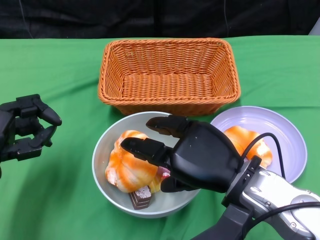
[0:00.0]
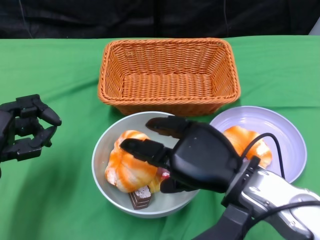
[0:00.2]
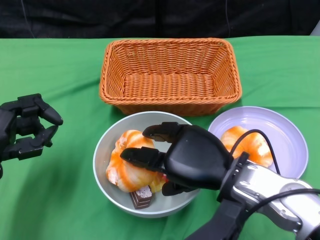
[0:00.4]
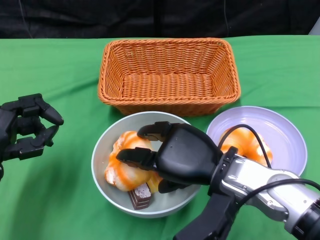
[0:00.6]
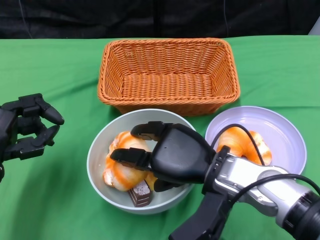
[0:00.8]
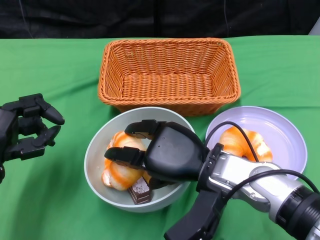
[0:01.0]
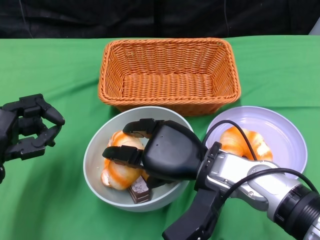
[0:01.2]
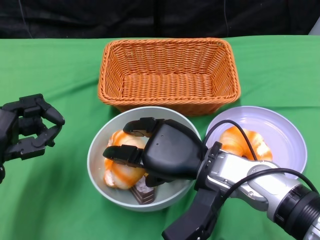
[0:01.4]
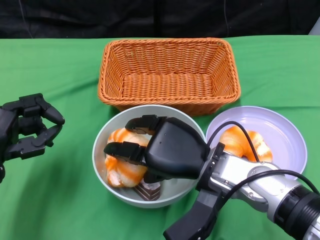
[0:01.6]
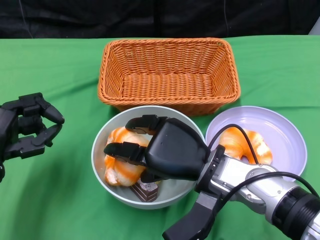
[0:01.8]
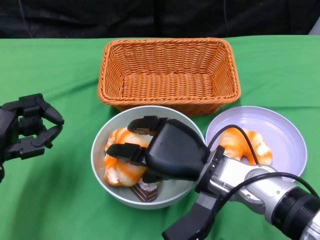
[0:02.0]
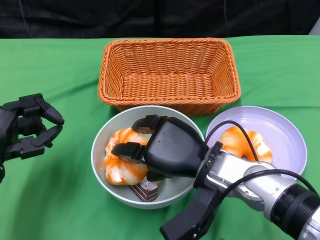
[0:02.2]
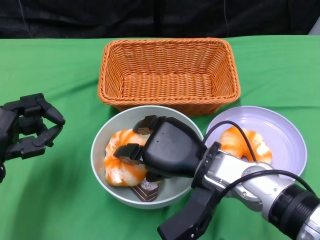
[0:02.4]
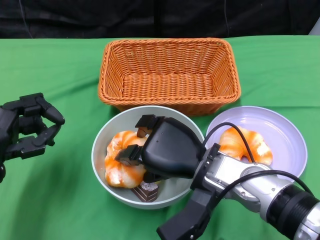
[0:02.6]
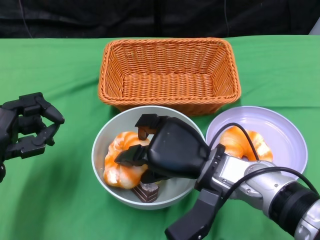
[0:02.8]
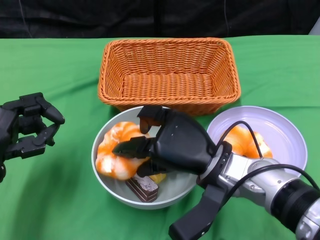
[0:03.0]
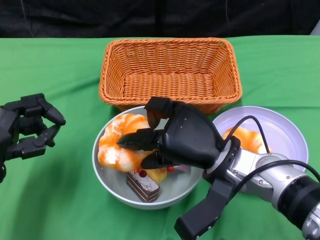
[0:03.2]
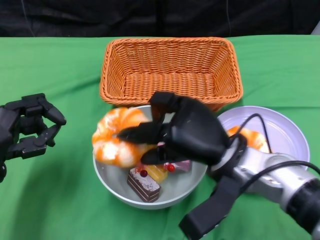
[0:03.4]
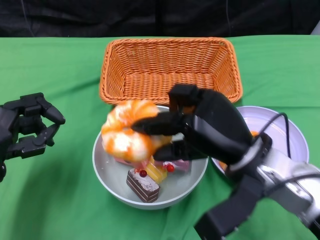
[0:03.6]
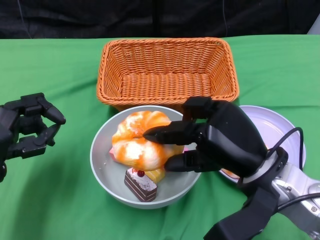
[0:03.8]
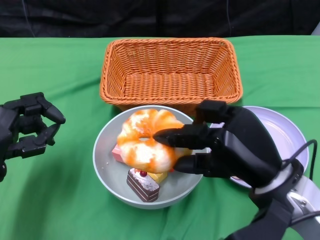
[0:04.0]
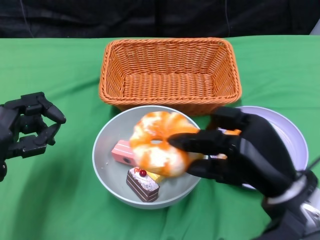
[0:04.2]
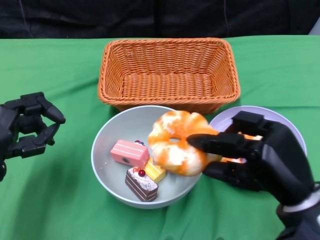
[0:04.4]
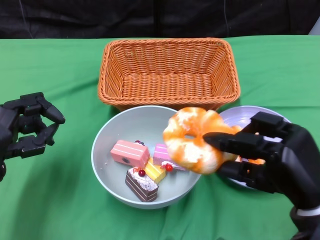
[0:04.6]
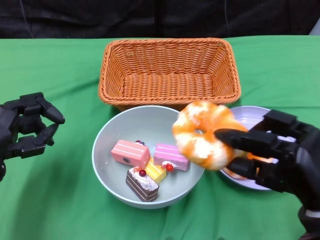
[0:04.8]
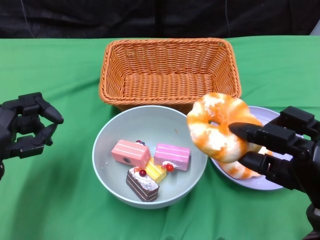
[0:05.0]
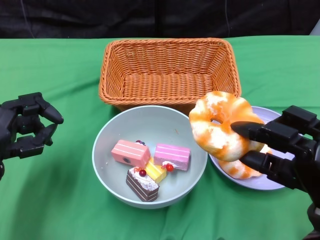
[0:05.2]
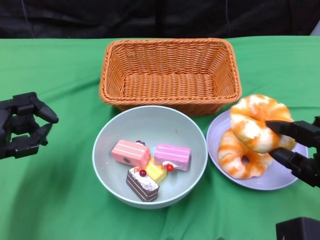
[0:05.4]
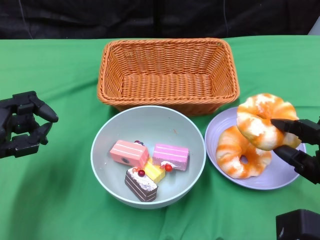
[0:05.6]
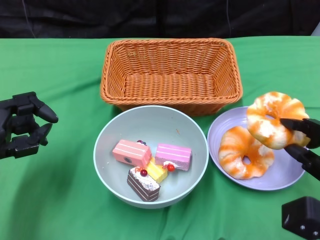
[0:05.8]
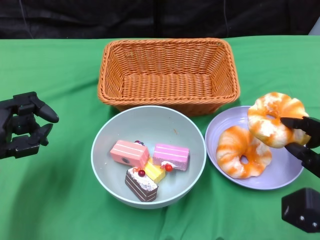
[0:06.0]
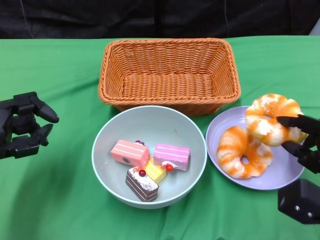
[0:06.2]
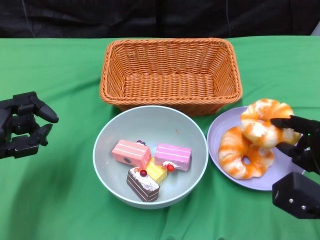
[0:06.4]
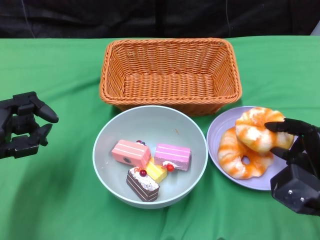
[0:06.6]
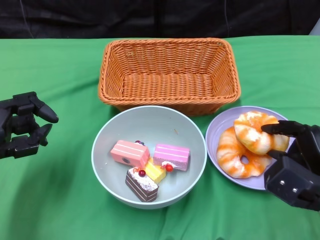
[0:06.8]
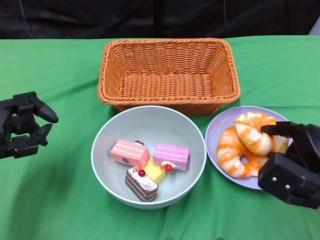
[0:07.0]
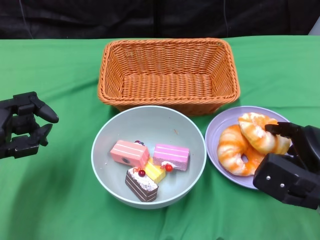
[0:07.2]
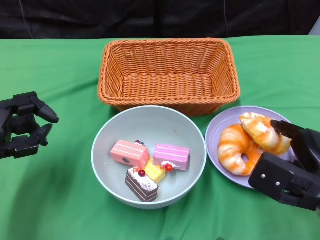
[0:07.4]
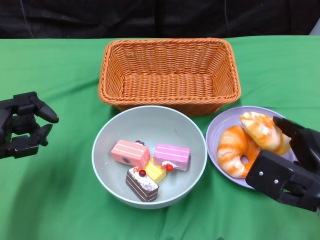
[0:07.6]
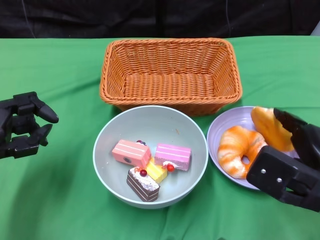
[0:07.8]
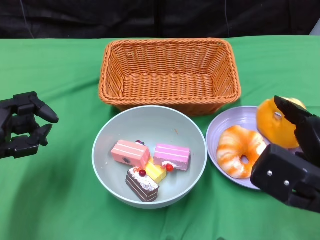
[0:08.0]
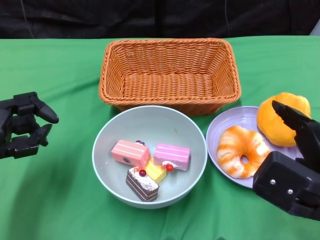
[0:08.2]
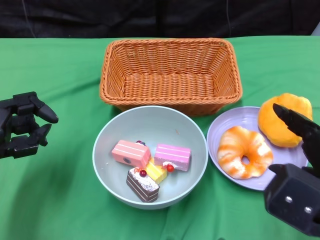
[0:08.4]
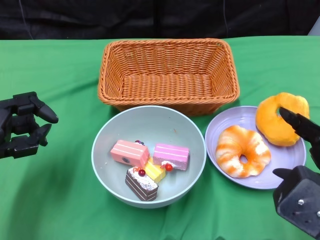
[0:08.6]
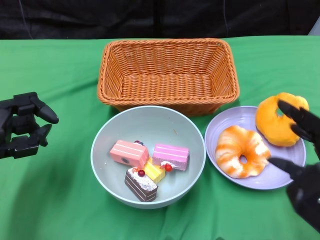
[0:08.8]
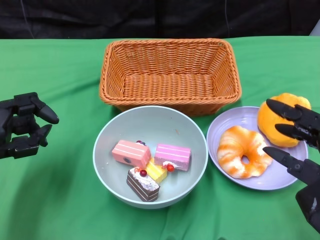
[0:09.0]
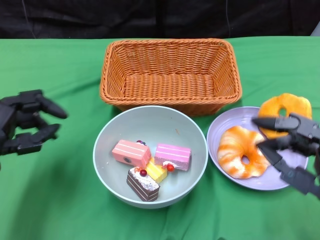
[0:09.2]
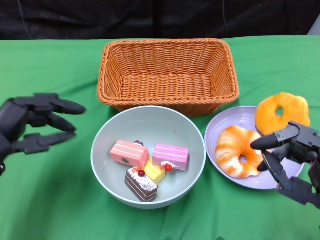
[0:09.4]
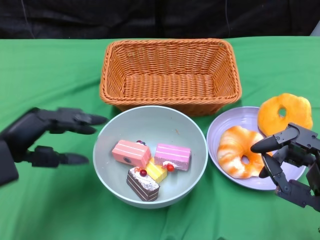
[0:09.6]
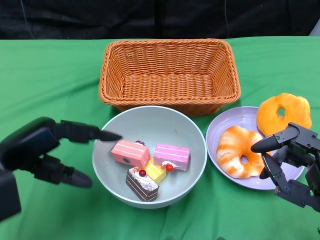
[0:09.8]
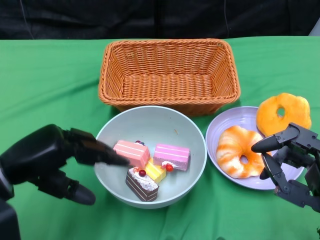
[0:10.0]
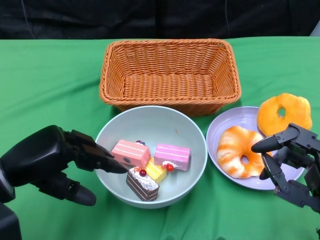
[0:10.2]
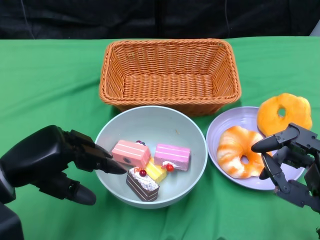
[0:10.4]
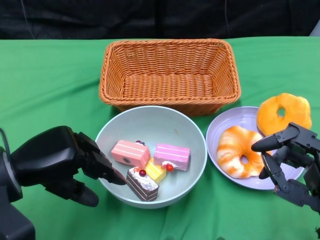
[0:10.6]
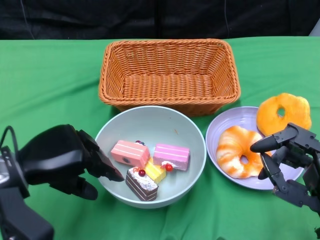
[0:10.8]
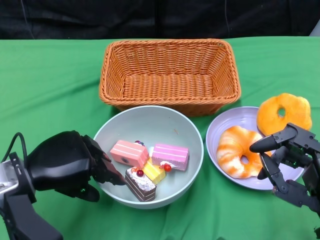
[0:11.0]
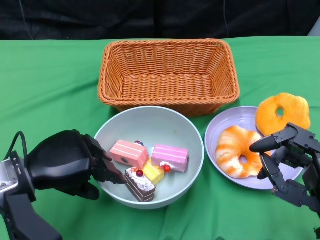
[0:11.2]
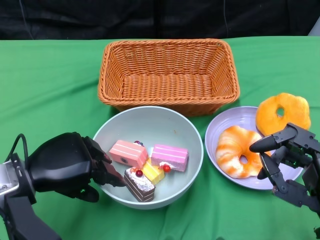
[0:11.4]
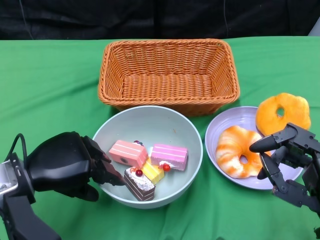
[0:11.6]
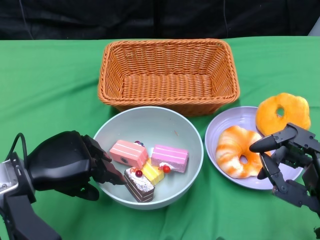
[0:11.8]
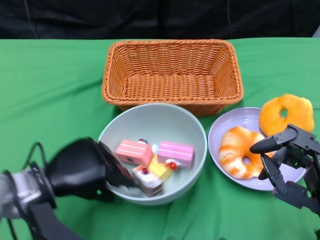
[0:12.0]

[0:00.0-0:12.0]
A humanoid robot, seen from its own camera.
Step, 0:00.0 to 0:08.4: Pick up the bread with the right gripper and place it on the plate.
0:00.0 to 0:01.6: The right hand moves about 5 cm.
0:01.6 to 0:03.0: The hands move only a little.
0:03.0 to 0:04.4: The right hand moves to the right and backward, roughly 10 cm.
0:04.4 to 0:06.0: The right hand goes approximately 10 cm to the right and downward.
0:06.0 to 0:07.6: The right hand shifts by approximately 5 cm.
0:07.6 to 0:09.0: The right hand moves backward, some 5 cm.
0:10.4 to 0:12.0: The left hand changes place by some 5 cm.

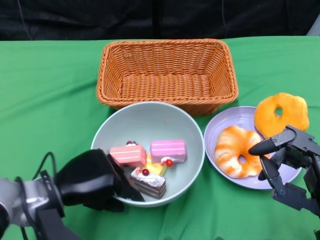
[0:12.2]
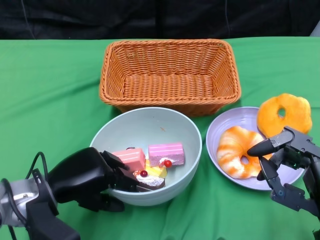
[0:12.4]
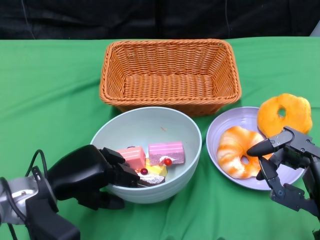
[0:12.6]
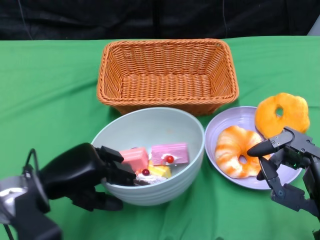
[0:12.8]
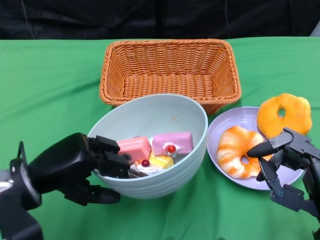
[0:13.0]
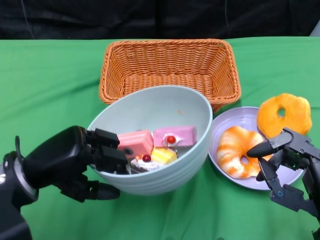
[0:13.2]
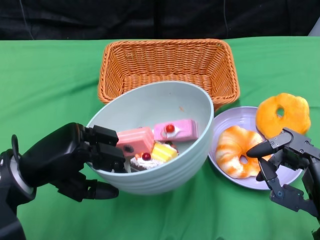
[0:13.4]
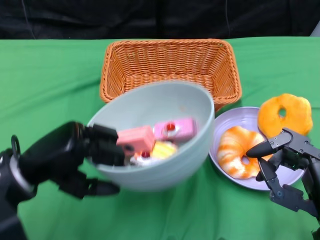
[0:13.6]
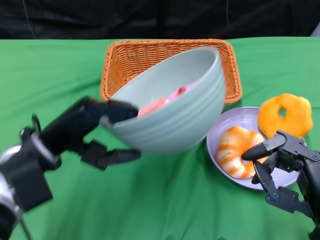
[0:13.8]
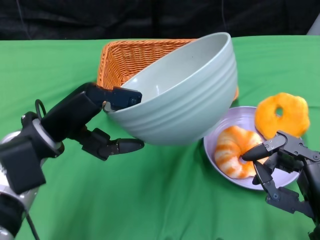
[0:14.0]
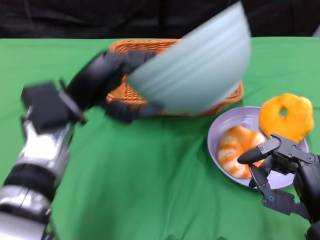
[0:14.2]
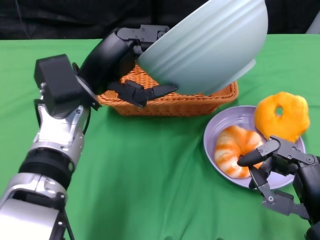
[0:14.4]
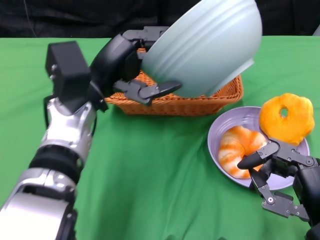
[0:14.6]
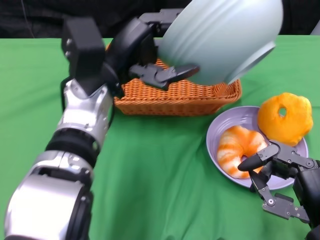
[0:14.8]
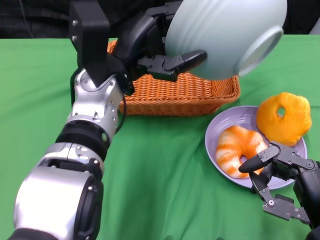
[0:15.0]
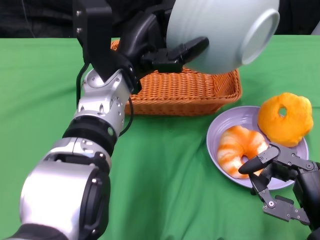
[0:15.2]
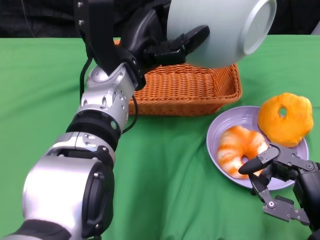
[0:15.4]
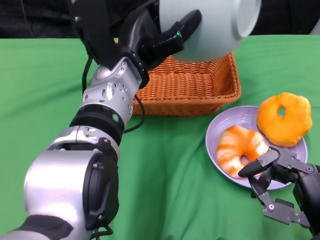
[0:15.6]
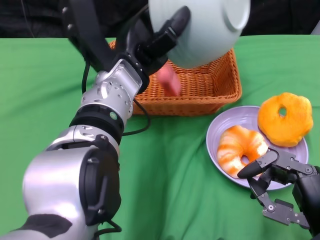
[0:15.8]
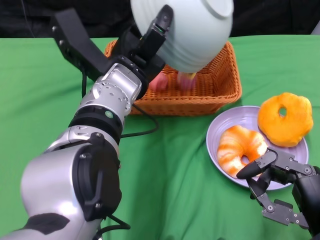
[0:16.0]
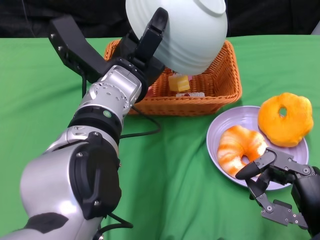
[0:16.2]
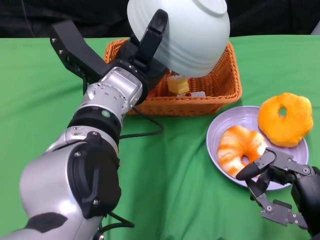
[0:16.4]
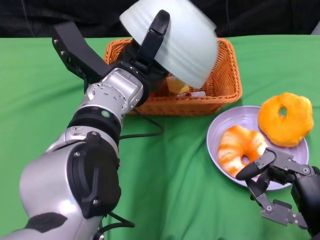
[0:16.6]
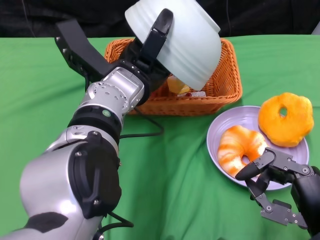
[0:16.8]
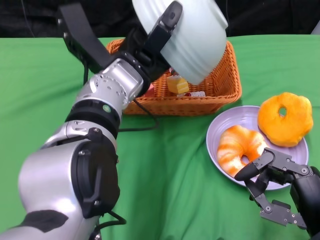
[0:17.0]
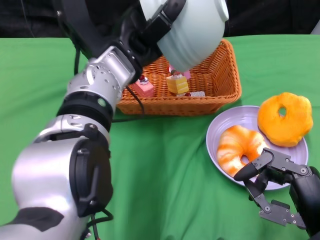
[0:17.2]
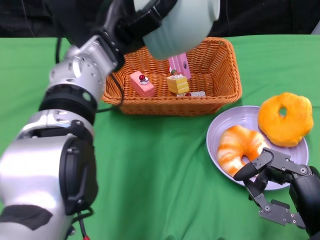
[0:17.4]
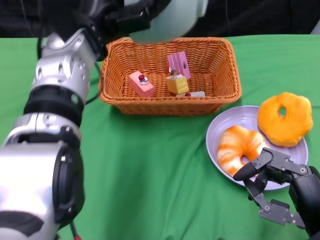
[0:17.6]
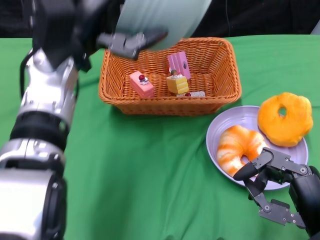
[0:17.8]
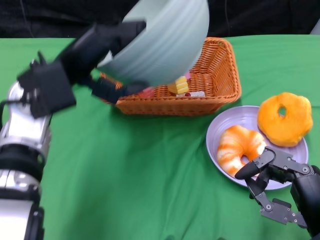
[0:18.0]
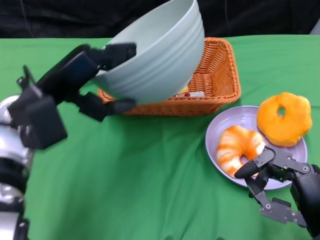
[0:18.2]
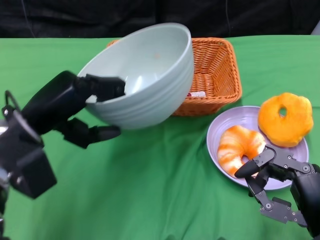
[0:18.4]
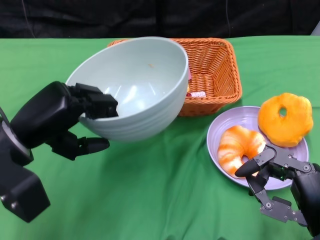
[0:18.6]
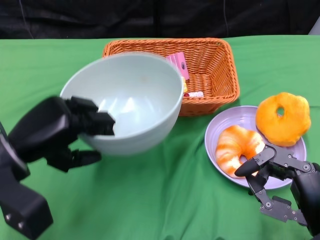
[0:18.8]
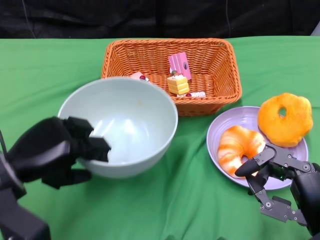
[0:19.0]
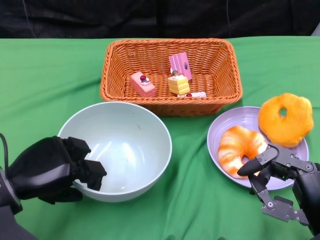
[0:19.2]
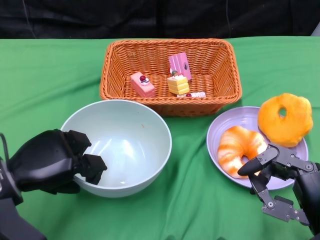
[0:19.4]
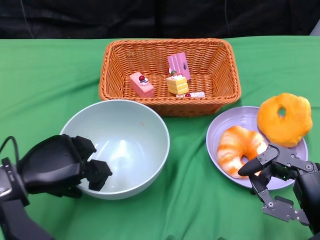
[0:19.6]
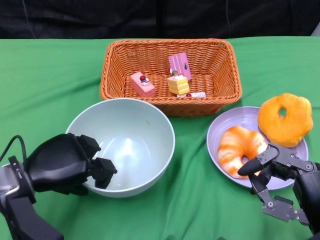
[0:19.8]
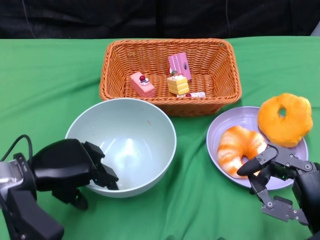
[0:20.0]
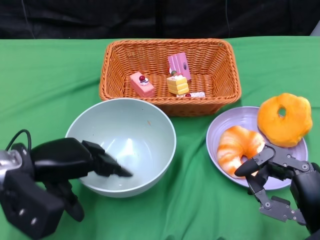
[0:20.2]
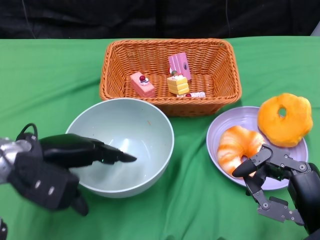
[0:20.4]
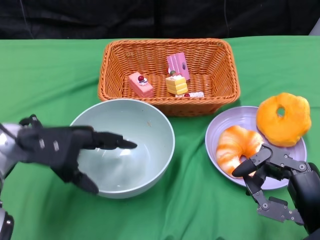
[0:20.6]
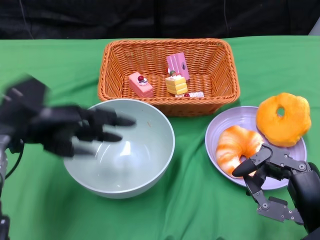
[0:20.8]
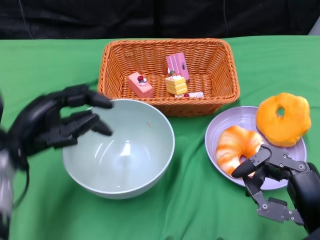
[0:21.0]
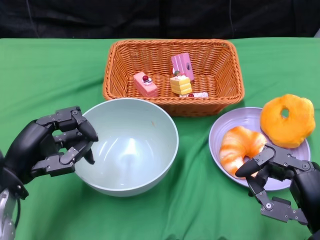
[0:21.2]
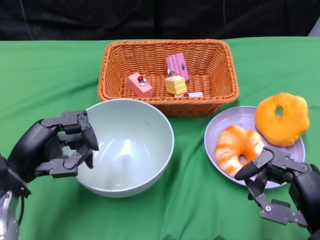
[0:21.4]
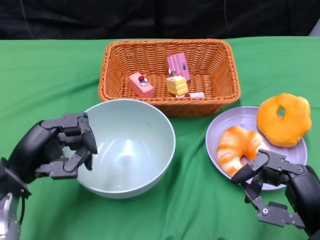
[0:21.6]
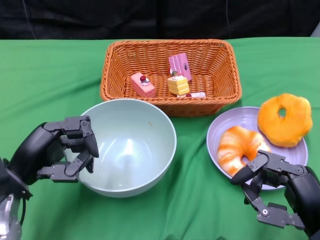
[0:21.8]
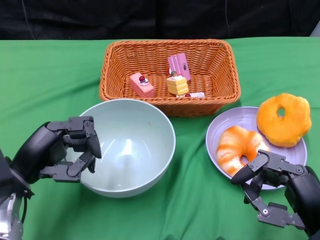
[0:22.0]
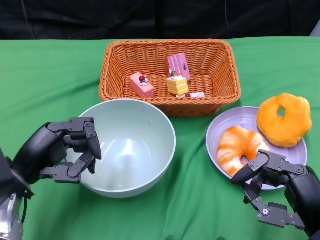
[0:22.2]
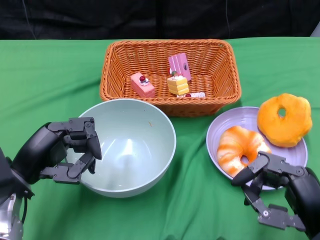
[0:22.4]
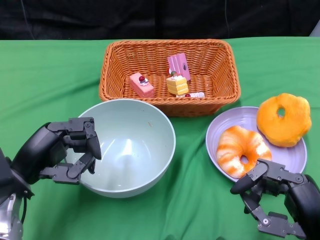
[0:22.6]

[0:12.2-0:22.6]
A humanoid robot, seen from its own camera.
Step, 0:12.4 to 0:16.4: Pour the cake into the basket with the left gripper.
Step, 0:16.6 to 0:20.4: Place the bowl on the table with the left gripper.
0:12.2 to 0:13.6: The left hand goes some 5 cm upward.
0:13.6 to 0:15.2: The left hand moves to the right, forward and upward, approximately 20 cm.
0:16.6 to 0:18.2: The left hand shifts approximately 15 cm to the left.
0:18.2 to 0:19.6: The left hand goes some 10 cm downward, backward and to the left.
